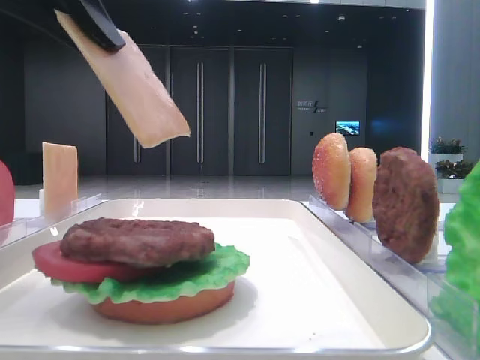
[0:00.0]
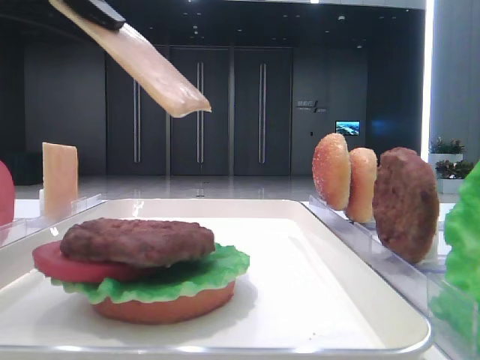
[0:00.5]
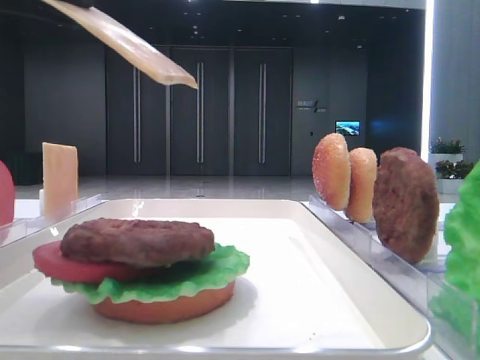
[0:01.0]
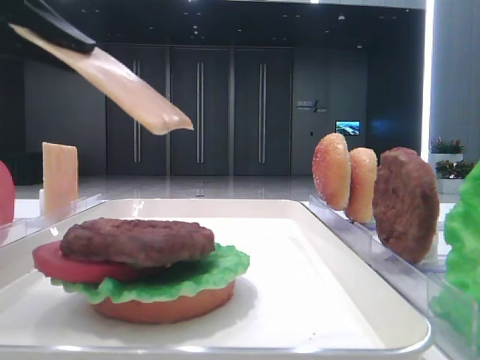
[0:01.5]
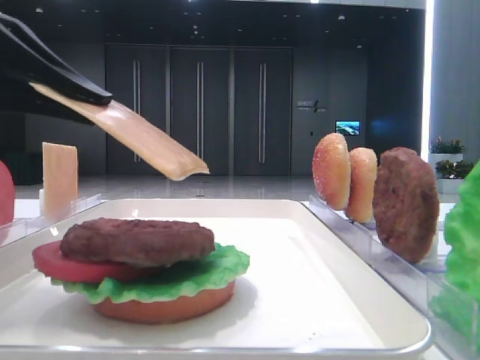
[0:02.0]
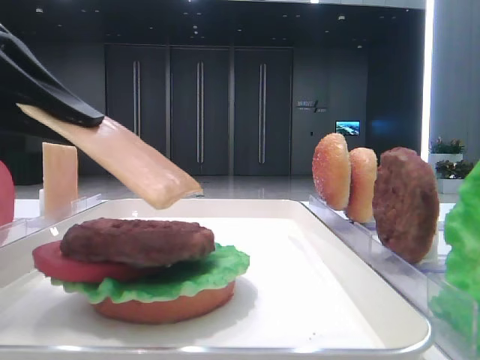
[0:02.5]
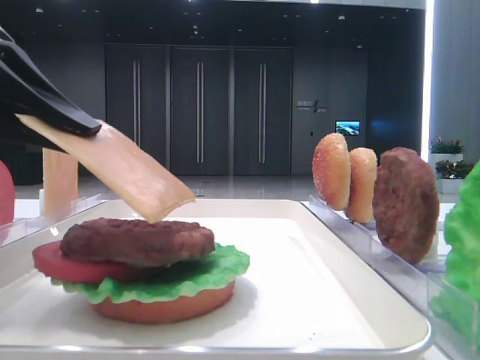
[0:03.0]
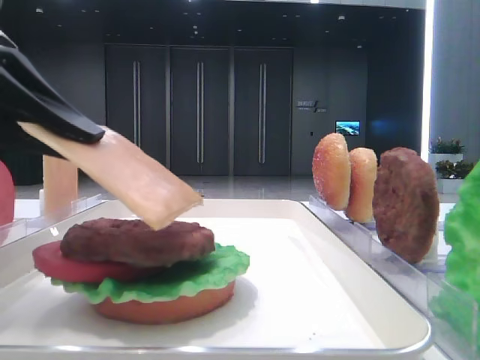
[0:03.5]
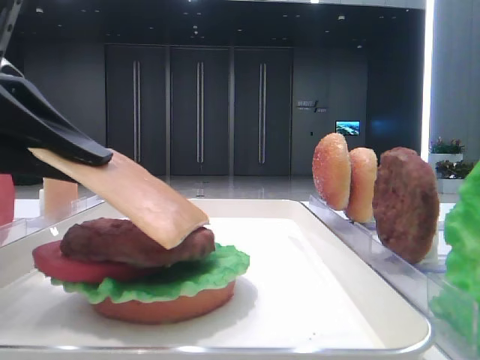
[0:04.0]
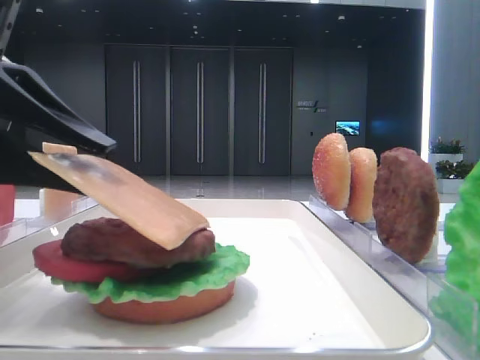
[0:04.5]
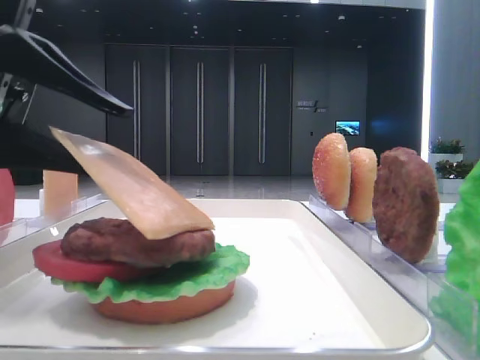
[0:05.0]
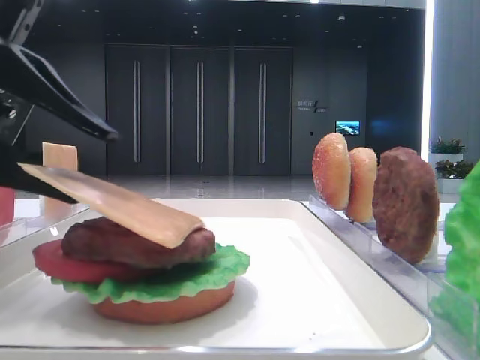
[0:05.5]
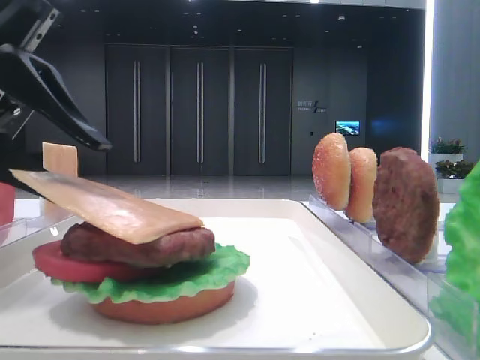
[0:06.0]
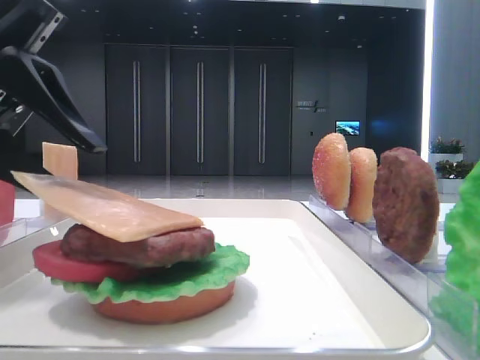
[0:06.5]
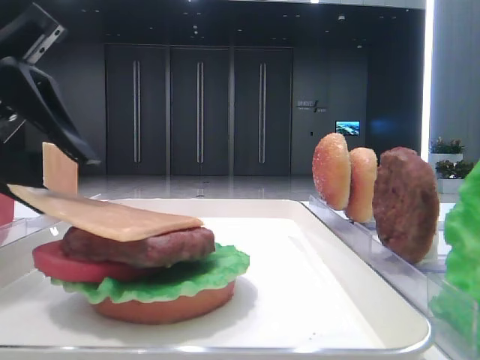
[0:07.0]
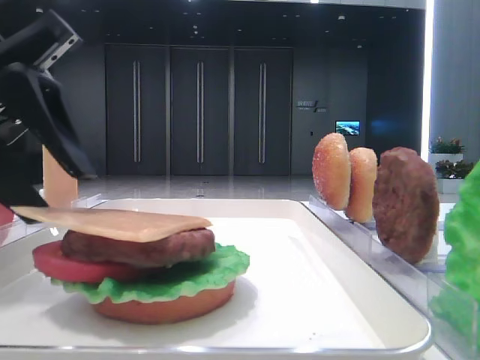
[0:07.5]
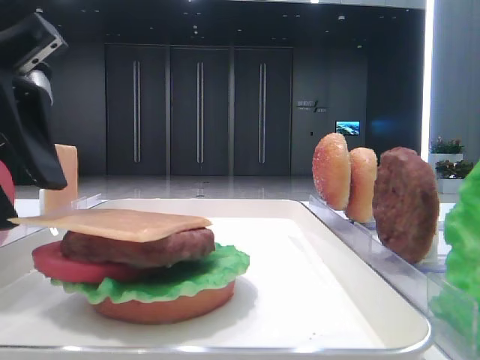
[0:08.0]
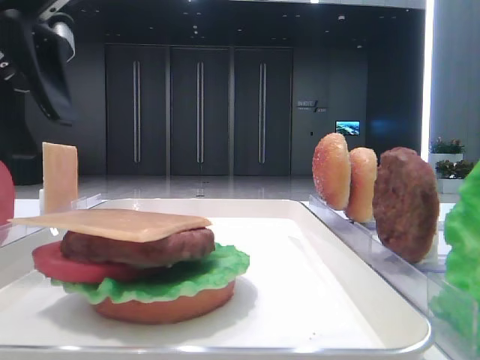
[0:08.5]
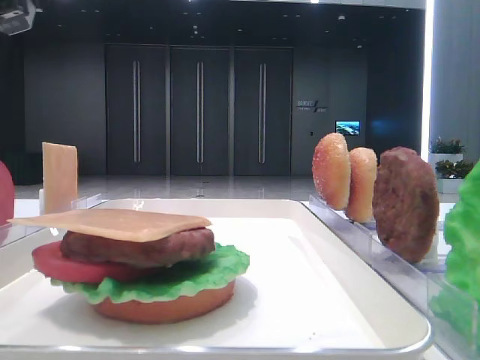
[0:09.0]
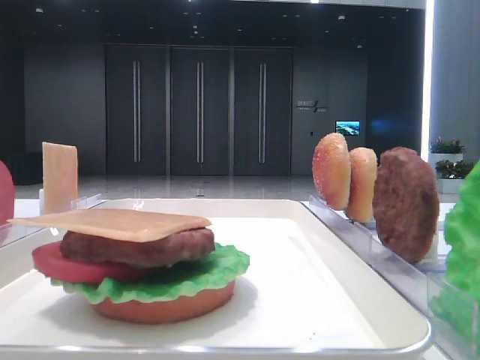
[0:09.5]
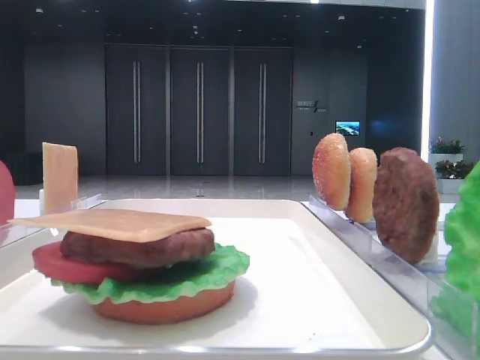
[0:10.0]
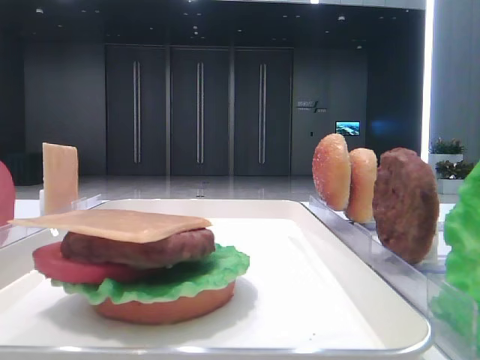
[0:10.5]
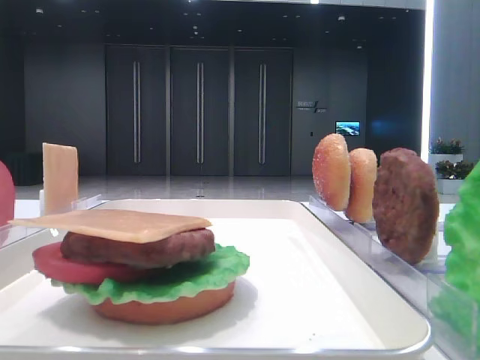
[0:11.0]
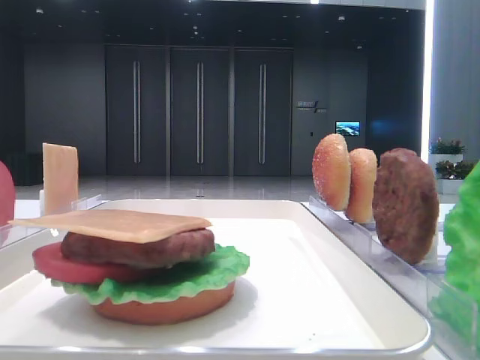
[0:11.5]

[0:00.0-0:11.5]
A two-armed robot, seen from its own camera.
Step, 0:00.0 to 0:07.5: Place the cheese slice on the patty with the left hand.
0:00.0 to 0:02.0: The left gripper is displaced downward by some 10 cm.
0:02.0 to 0:04.0: The grippers make only small movements.
0:04.0 to 0:06.0: The left gripper opens its fingers.
0:06.0 to 0:07.5: There are only small adjustments of the grippers.
0:07.5 to 0:09.5: The left gripper heads to the left, upward and forward, covering roughly 20 cm.

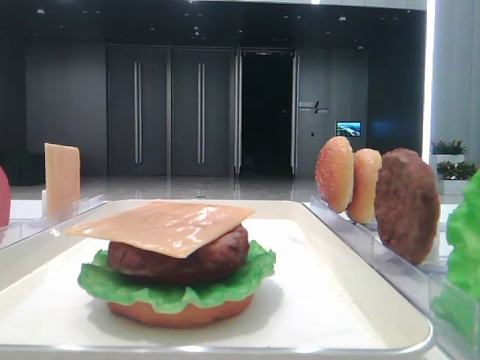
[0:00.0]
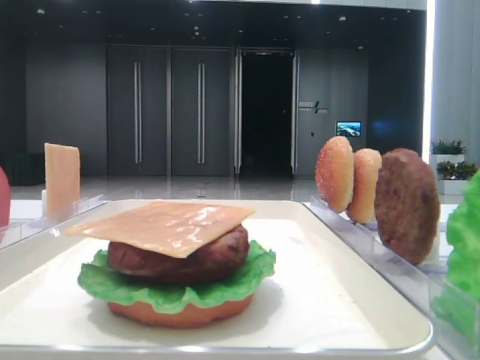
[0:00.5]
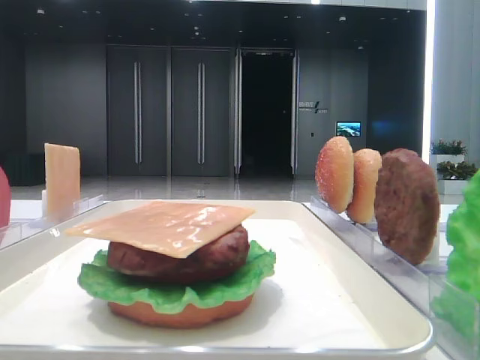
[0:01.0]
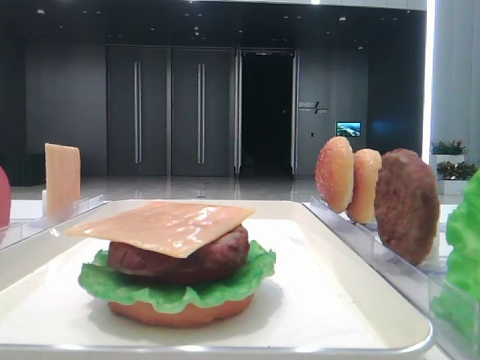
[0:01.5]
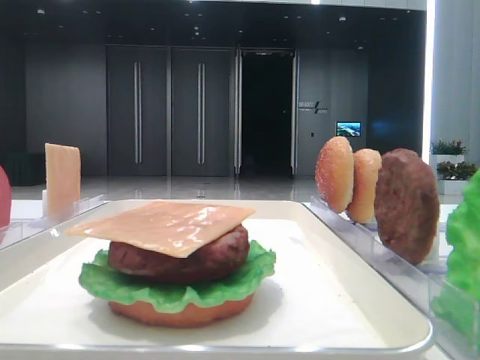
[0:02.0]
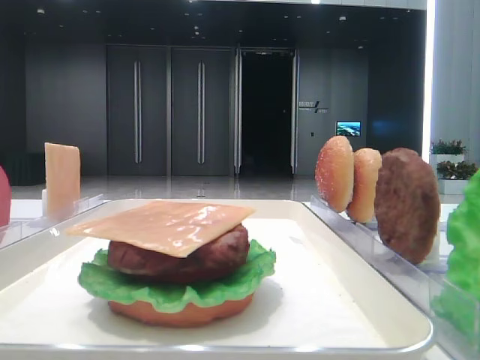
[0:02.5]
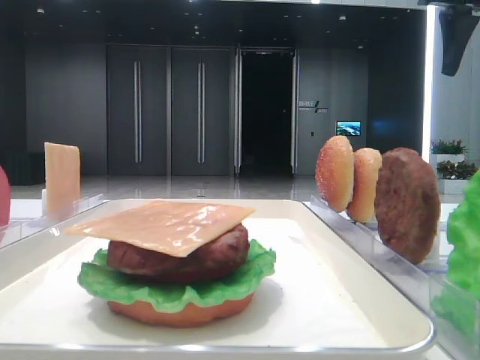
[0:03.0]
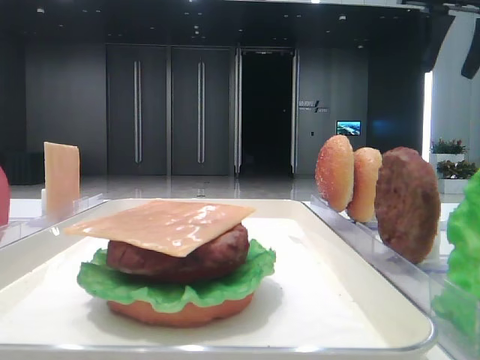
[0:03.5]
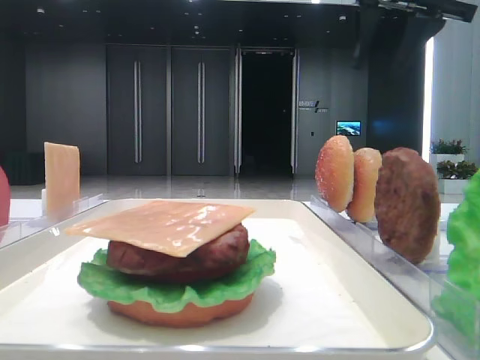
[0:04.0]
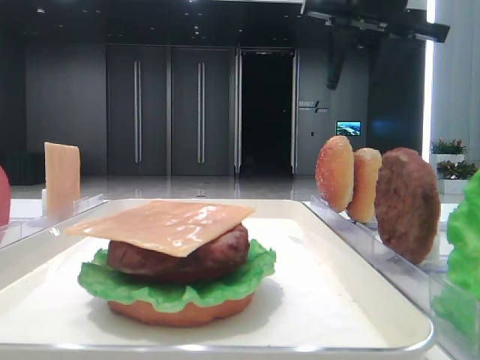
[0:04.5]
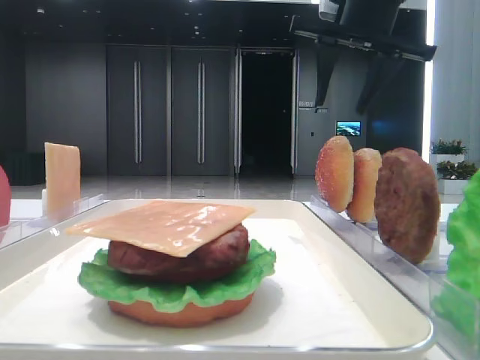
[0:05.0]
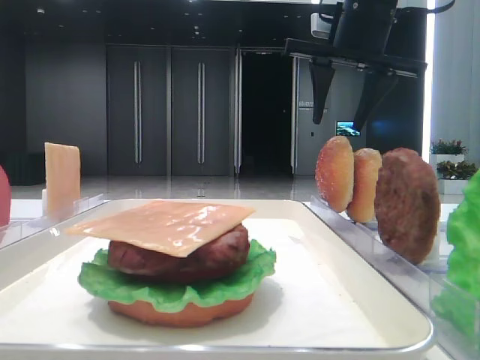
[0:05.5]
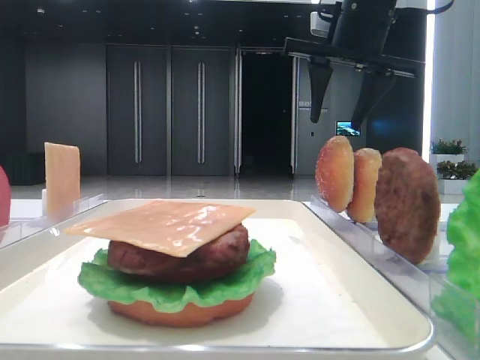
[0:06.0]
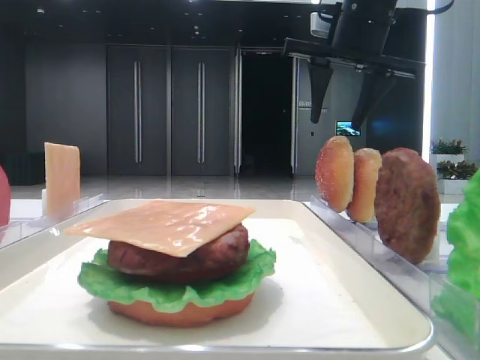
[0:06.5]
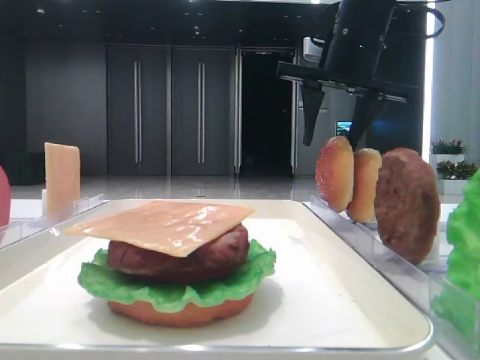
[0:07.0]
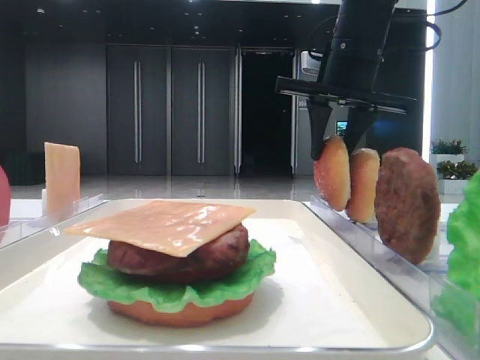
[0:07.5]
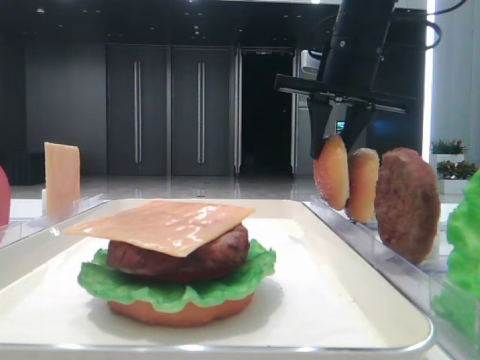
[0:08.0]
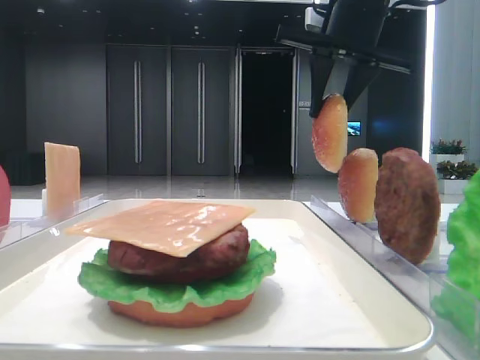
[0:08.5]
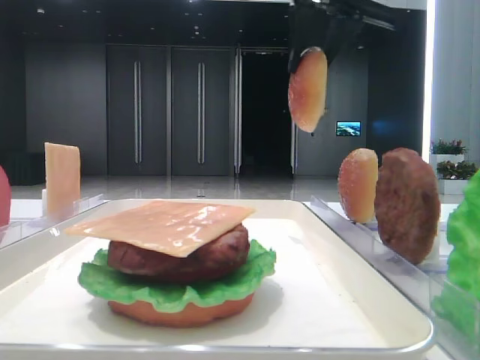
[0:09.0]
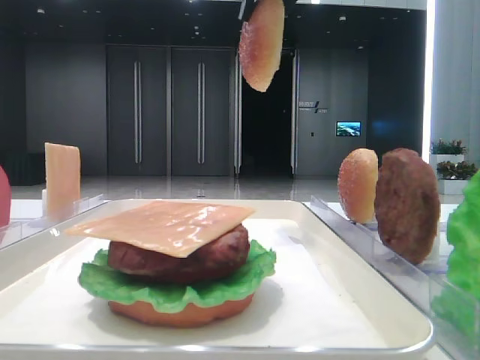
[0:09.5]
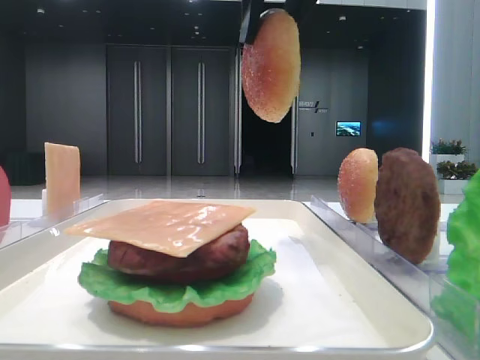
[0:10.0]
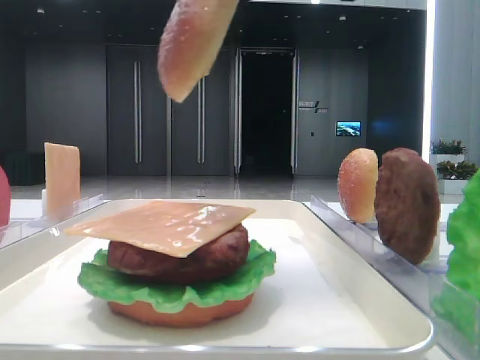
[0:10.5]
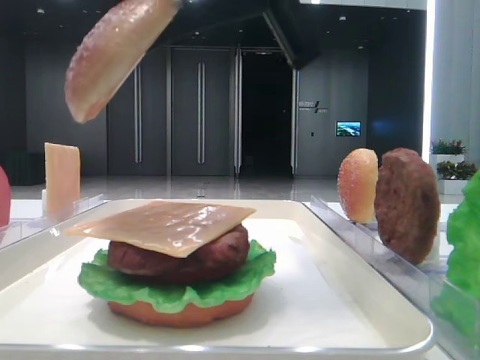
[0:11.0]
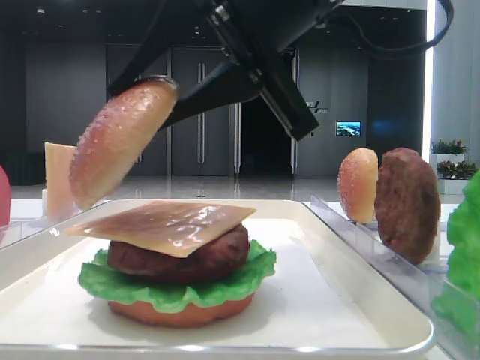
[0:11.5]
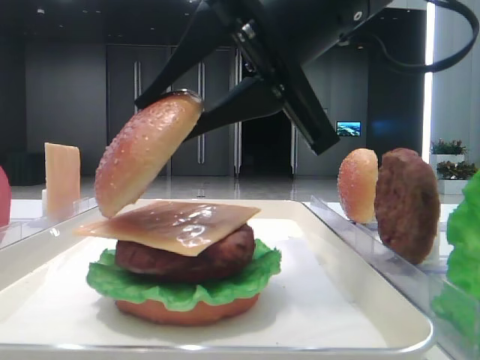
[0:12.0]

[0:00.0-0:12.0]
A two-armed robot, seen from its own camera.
Step, 0:00.0 to 0:07.5: Pick up the top bread slice with the right hand.
0:02.0 to 0:04.0: The left gripper closes up. Meanwhile the right gripper moves forward and to the left, roughly 25 cm.
0:04.0 to 0:06.0: The right gripper goes some 5 cm downward.
0:06.0 to 0:08.0: The right gripper closes its fingers.
0:08.0 to 0:10.0: The right gripper goes about 20 cm backward, upward and to the left.
0:10.0 to 0:12.0: The right gripper is displaced downward by roughly 10 cm.

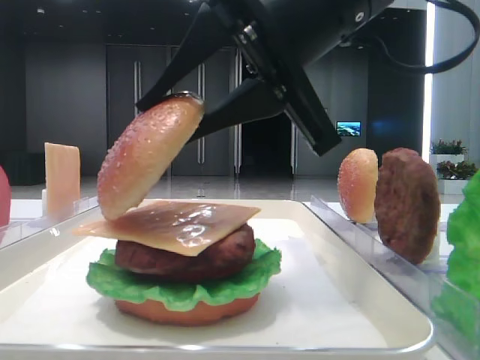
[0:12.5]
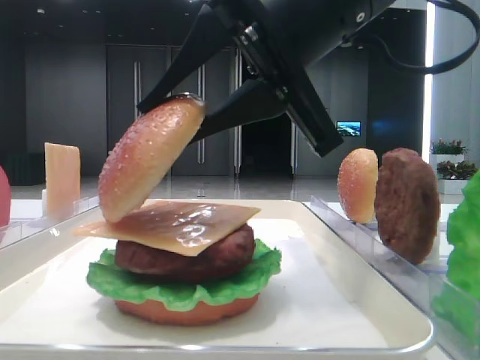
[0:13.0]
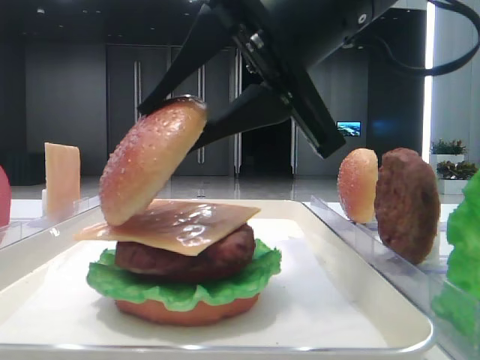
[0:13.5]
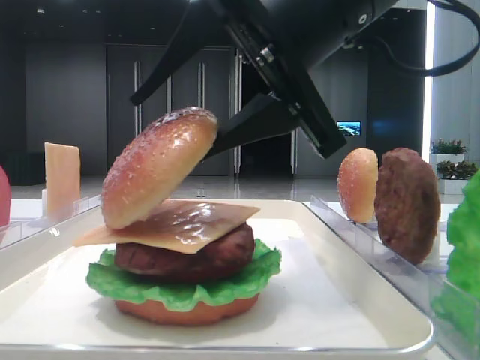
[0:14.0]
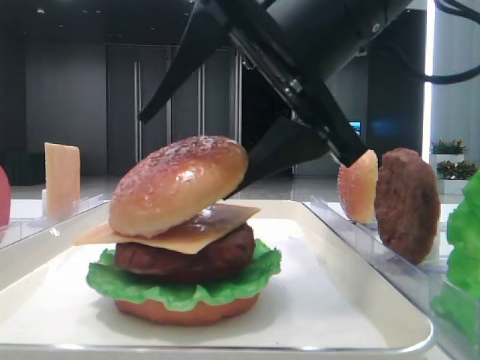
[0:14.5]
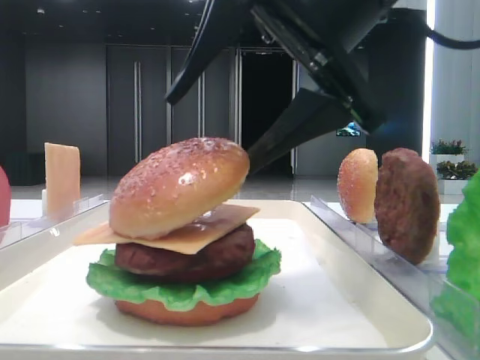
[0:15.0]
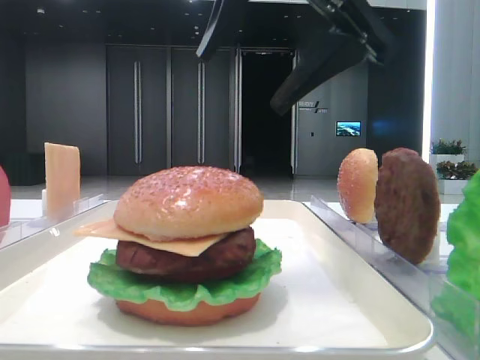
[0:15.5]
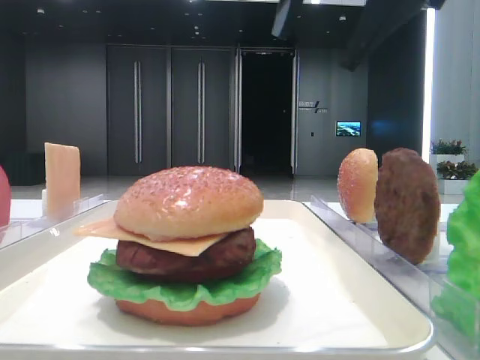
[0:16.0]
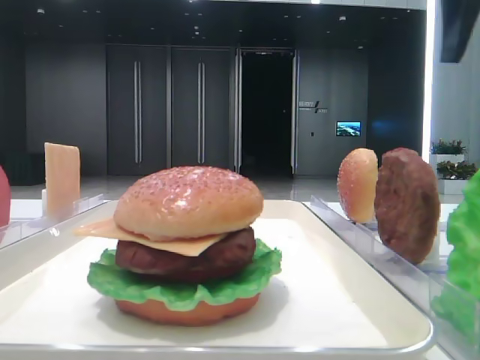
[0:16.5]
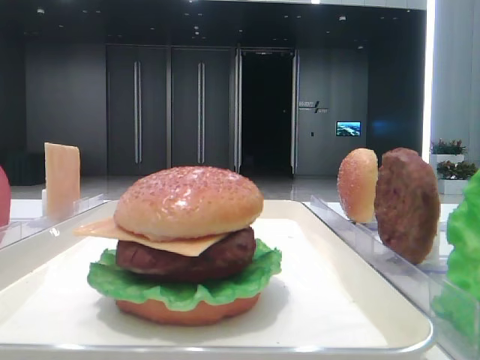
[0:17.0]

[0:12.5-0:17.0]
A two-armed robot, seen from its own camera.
Step, 0:12.5 to 0:15.0: Place the top bread slice on the cheese with the right hand.
0:12.5 to 0:14.5: The right gripper opens its fingers.
0:14.5 to 0:17.0: The right gripper travels to the right and upward by approximately 30 cm.
